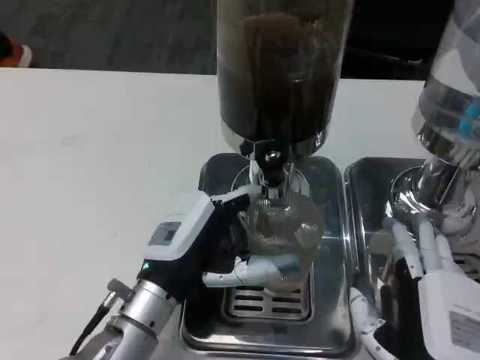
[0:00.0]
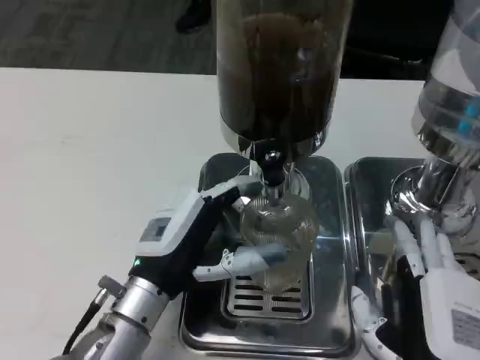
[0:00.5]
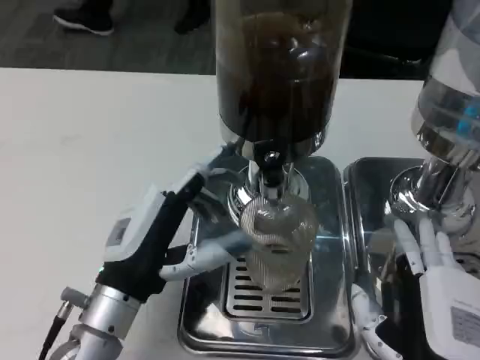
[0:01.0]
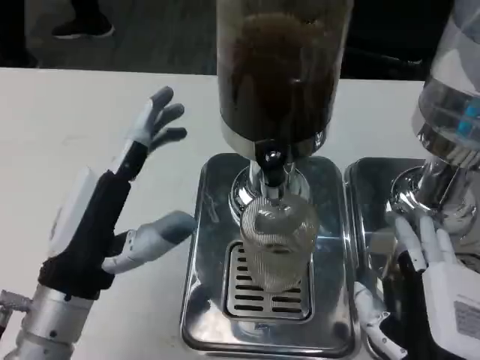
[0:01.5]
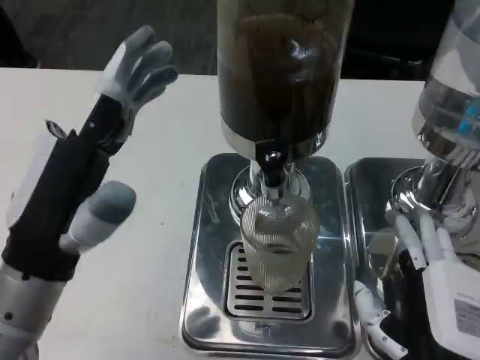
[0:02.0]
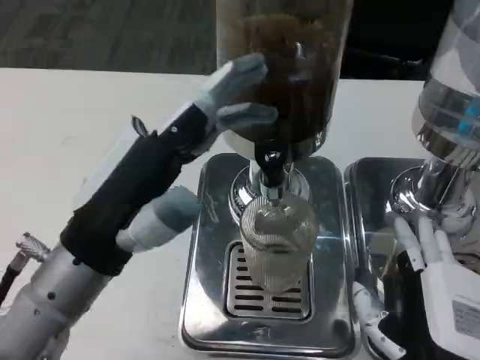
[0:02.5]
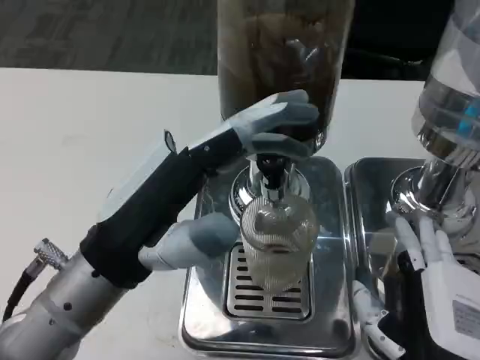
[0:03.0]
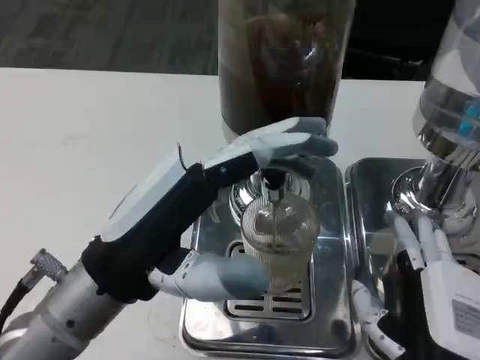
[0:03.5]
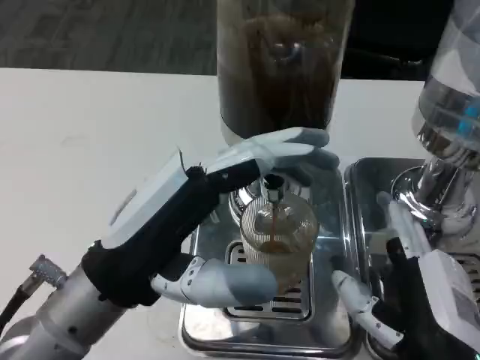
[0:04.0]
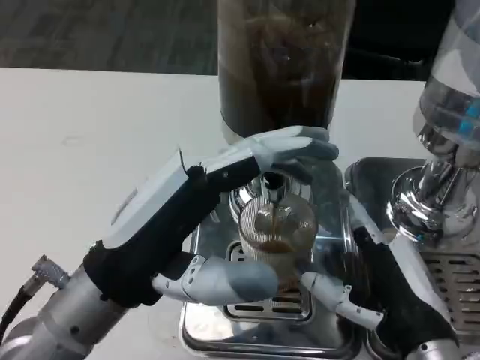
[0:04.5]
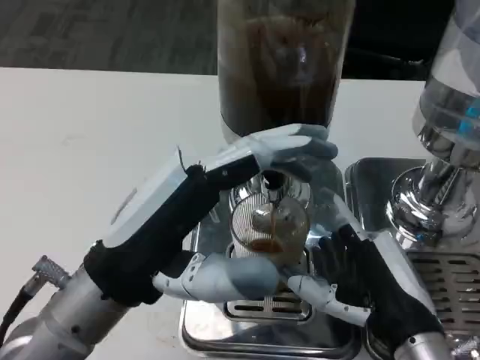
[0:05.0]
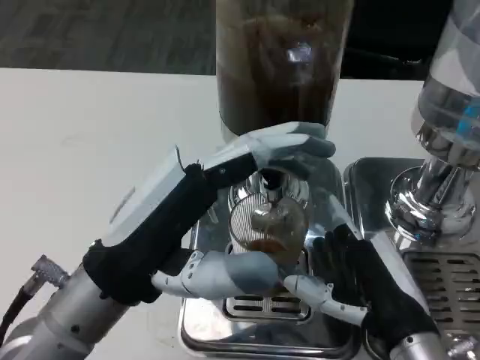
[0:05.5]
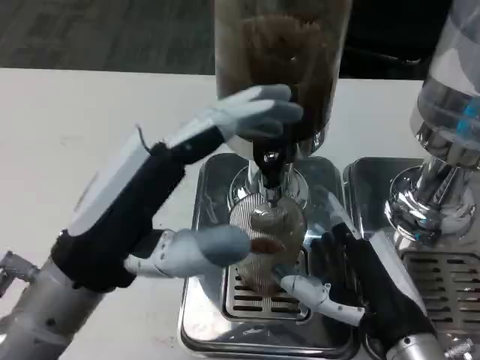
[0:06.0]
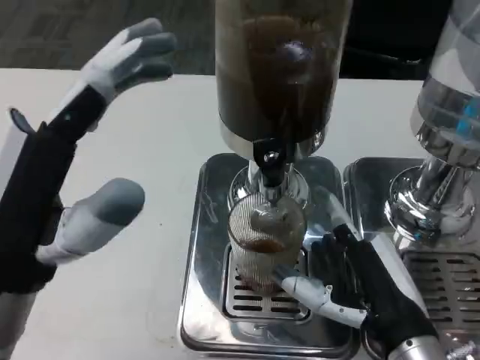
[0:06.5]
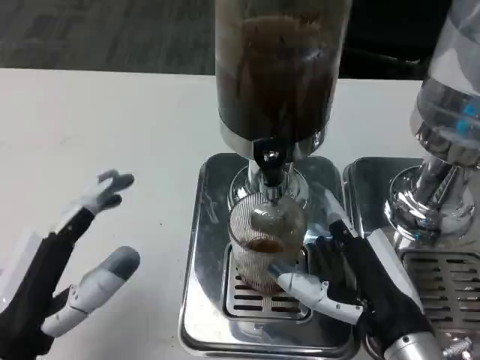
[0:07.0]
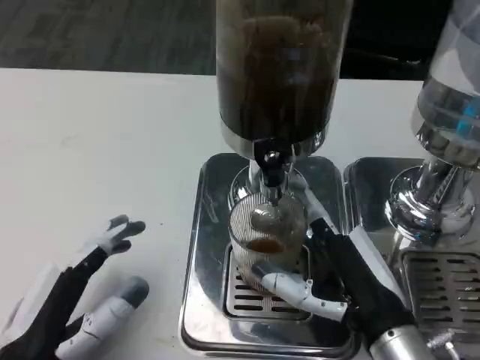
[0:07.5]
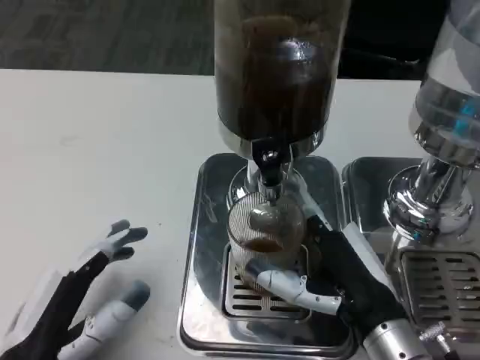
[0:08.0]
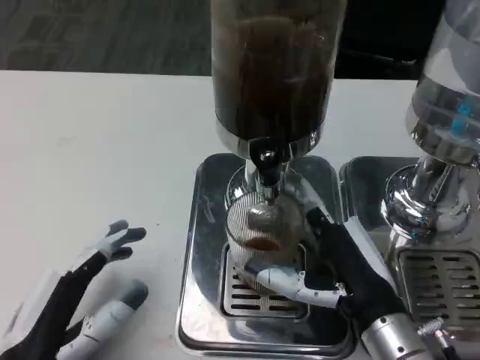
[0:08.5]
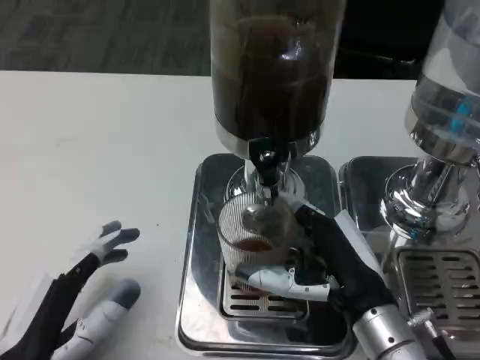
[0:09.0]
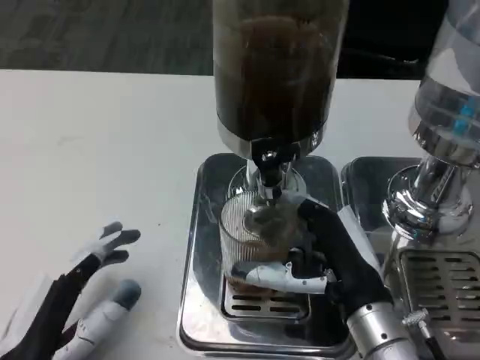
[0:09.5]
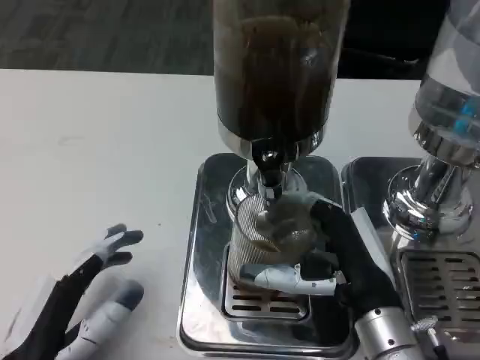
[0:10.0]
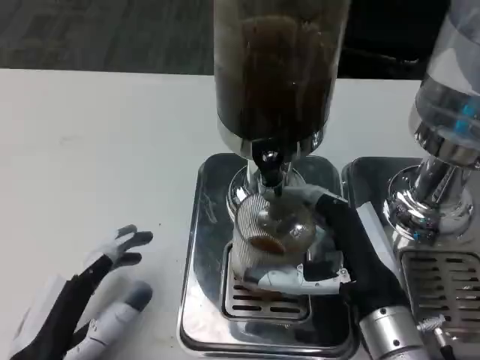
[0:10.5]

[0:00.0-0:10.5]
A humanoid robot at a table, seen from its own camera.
Task of the whole recording: Grasp the cup under the faucet to collect the drink, then remove the cup.
0:00.0 to 0:02.0: The left hand shifts approximately 10 cm upward and to the left.
0:06.5 to 0:08.5: The left hand is displaced downward by approximately 10 cm.
0:08.5 to 0:10.5: The hands make only small movements.

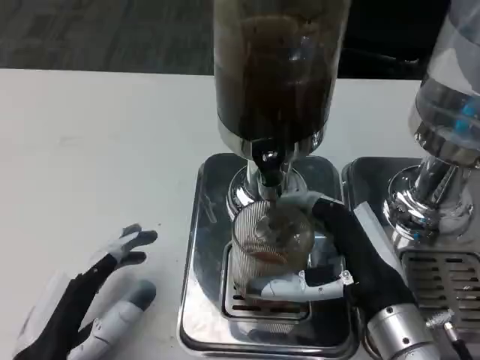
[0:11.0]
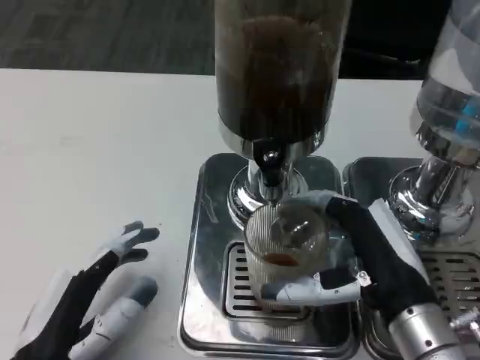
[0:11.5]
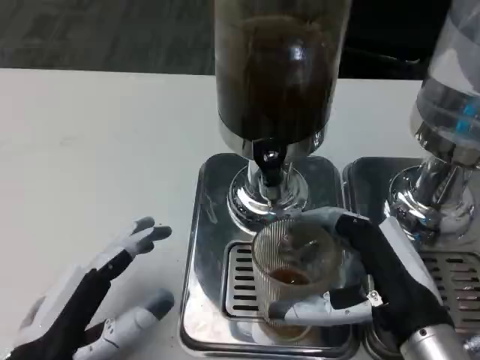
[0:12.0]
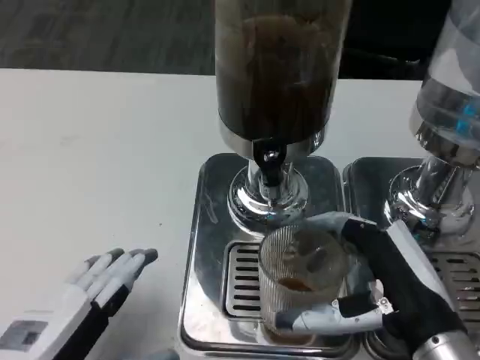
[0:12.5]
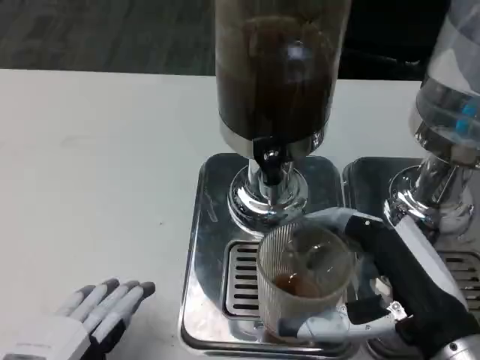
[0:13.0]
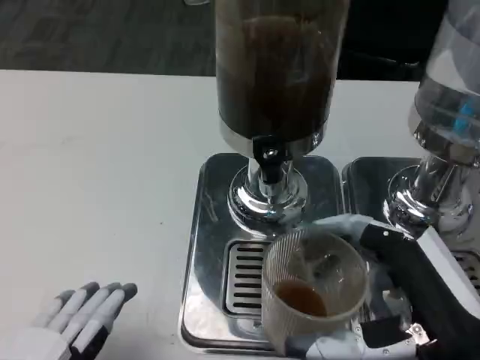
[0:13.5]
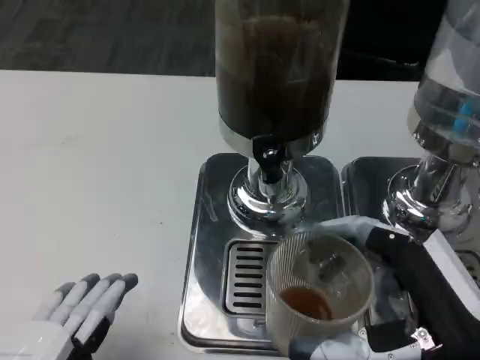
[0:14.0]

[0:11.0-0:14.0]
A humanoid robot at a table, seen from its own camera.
Task of the whole recording: Grasp the cup under the faucet to collect the drink, then remove the cup.
0:11.0 to 0:12.5: The left hand changes place by about 5 cm. The right hand changes place by roughly 5 cm.
0:12.5 to 0:14.0: The right hand moves approximately 5 cm.

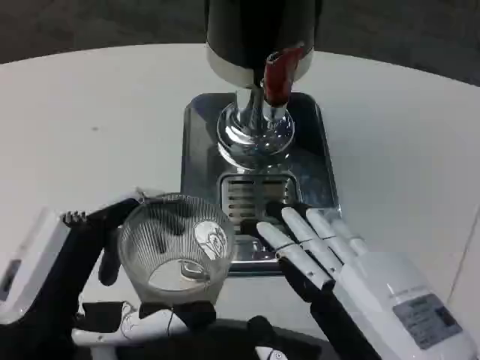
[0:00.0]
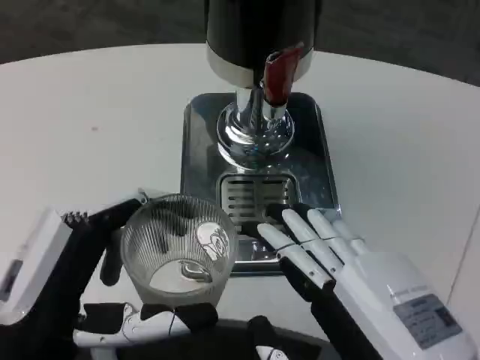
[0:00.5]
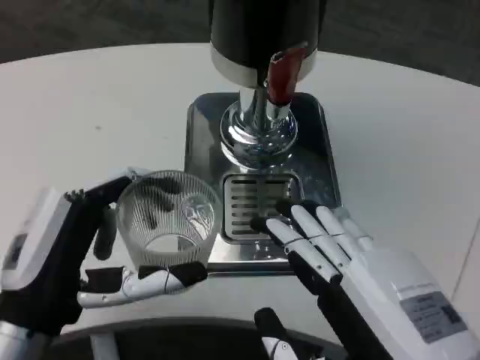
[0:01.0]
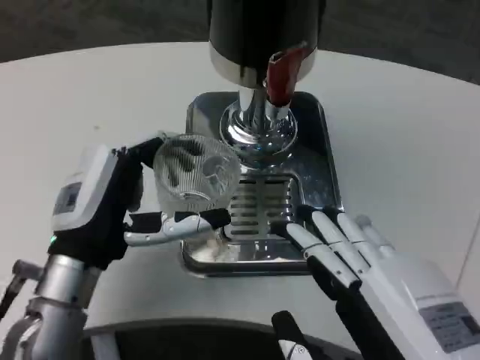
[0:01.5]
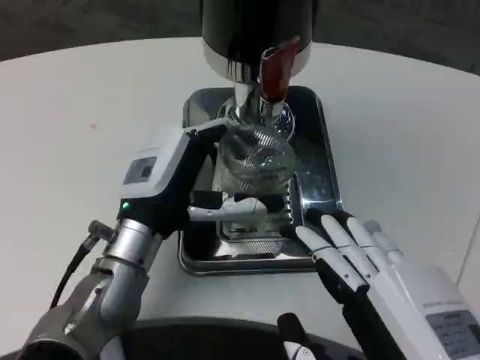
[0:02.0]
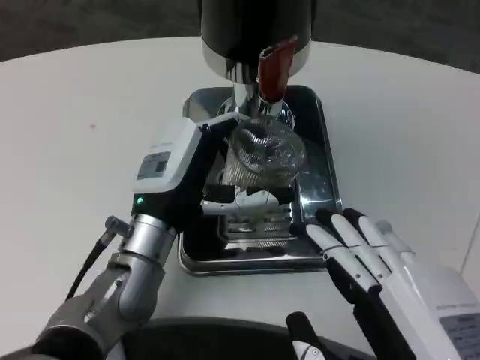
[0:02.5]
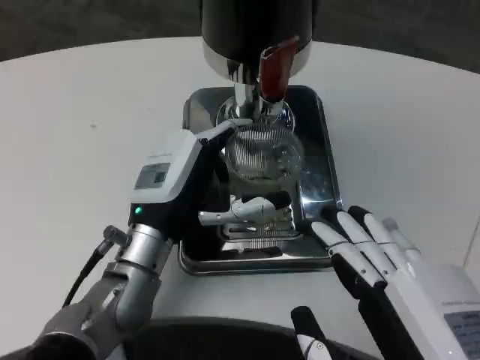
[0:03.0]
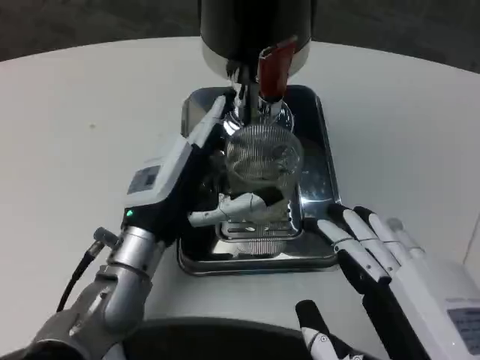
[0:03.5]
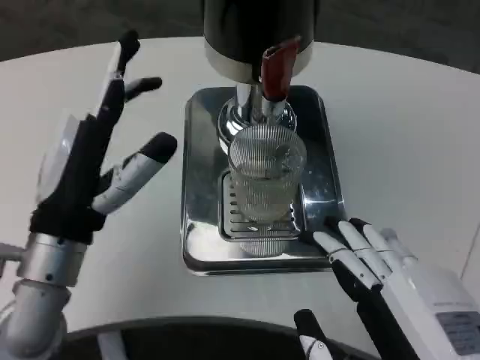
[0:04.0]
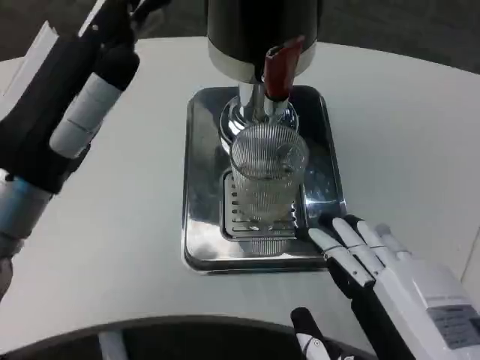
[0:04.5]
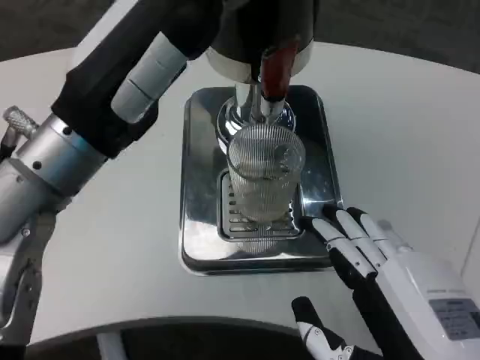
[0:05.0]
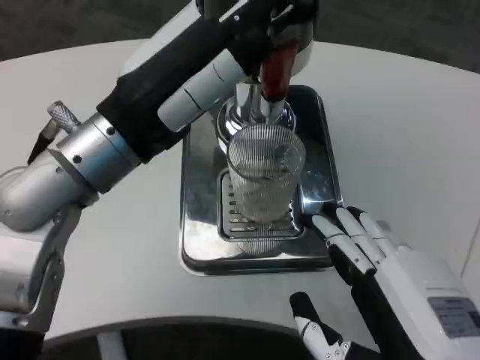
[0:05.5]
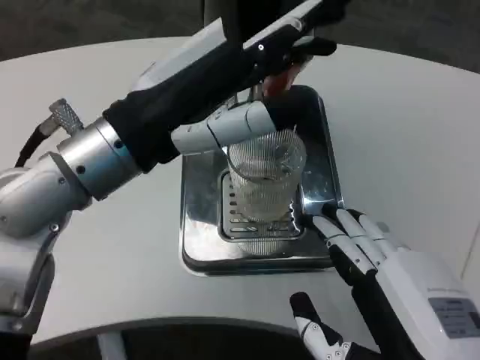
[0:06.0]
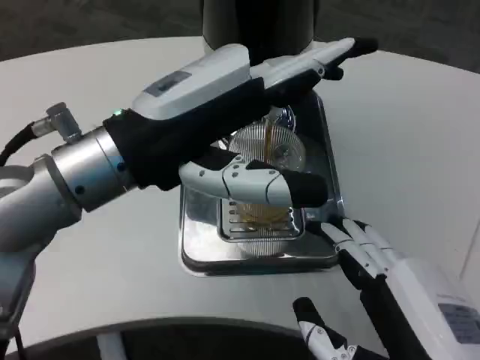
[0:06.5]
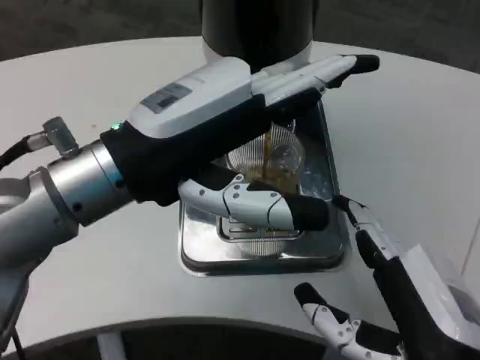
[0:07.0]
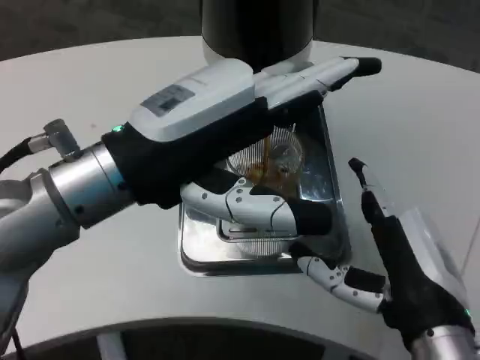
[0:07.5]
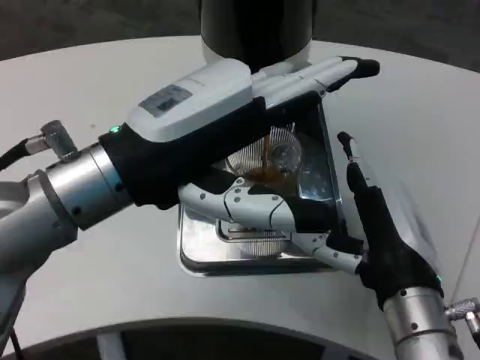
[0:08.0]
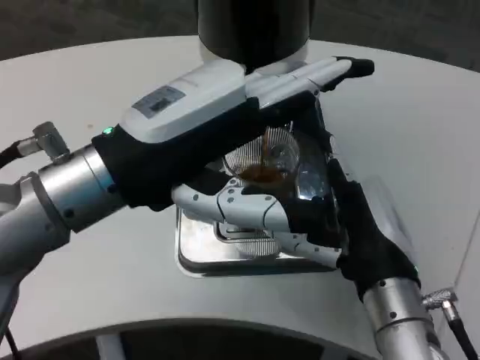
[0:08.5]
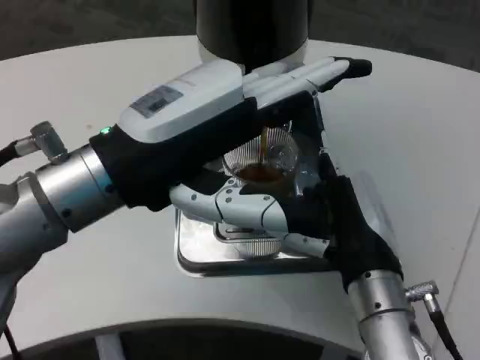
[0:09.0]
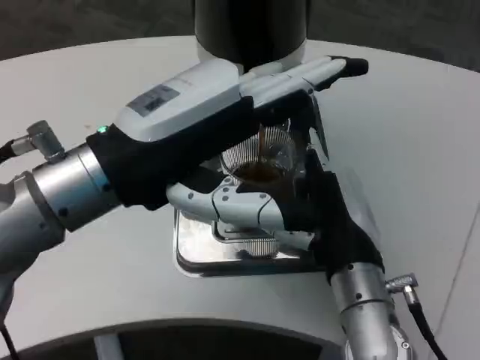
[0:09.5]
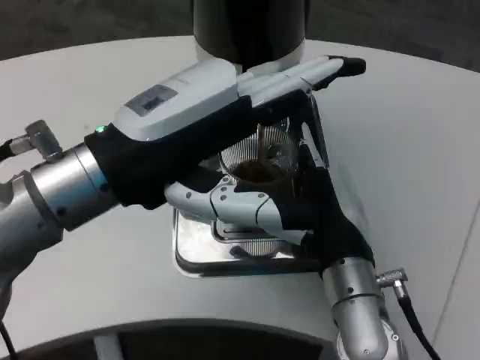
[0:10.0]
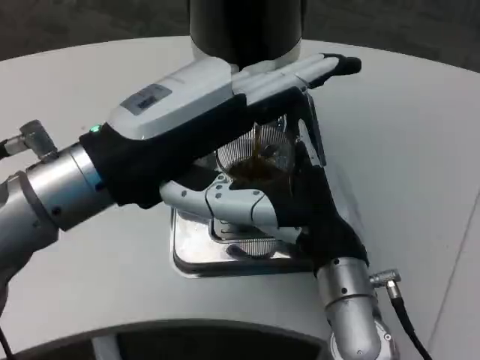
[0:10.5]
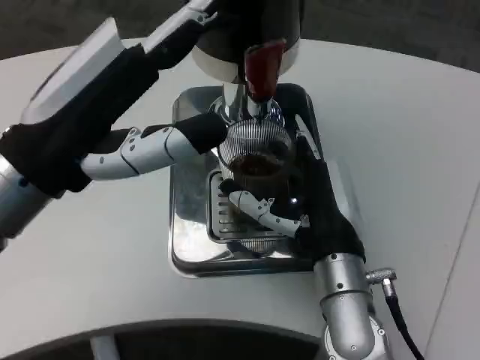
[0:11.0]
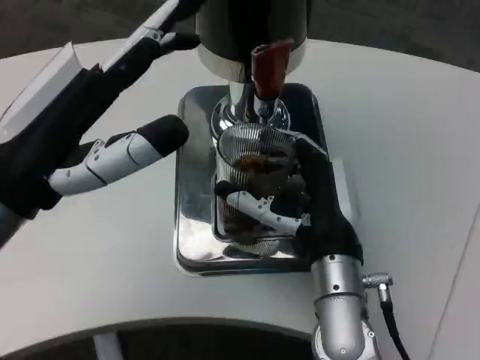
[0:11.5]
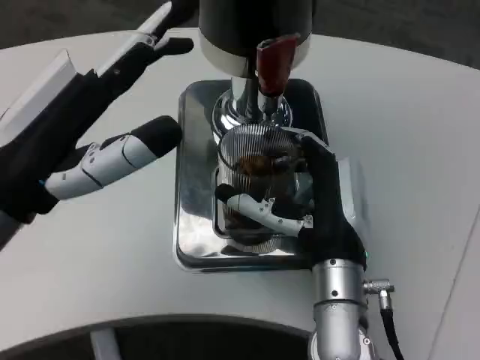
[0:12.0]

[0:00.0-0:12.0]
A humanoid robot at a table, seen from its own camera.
Task of the whole recording: Grasp the cup under the faucet to collect the drink, then remove the cup.
0:00.0 to 0:02.0: The left hand heads forward and to the right, covering about 15 cm.
0:02.0 to 0:04.0: The left hand shifts approximately 5 cm backward and to the left.
0:04.0 to 0:06.0: The left hand heads upward, covering roughly 10 cm.
0:06.0 to 0:08.0: The right hand travels forward by some 10 cm.
0:08.0 to 0:10.0: The right hand is displaced forward by roughly 5 cm.
0:10.0 to 0:12.0: The left hand goes roughly 5 cm to the left.
